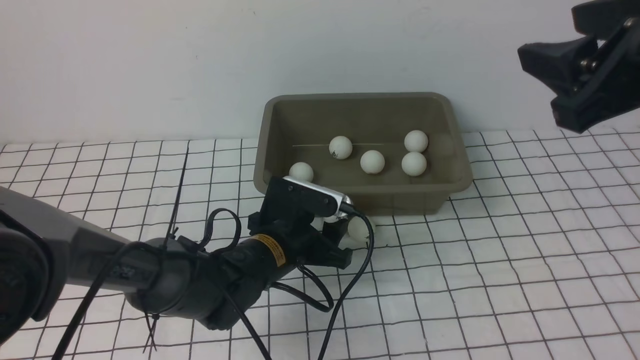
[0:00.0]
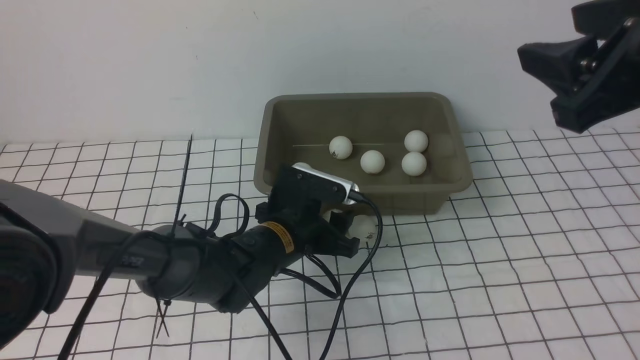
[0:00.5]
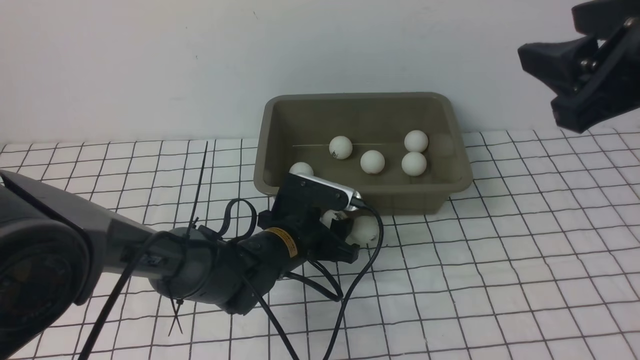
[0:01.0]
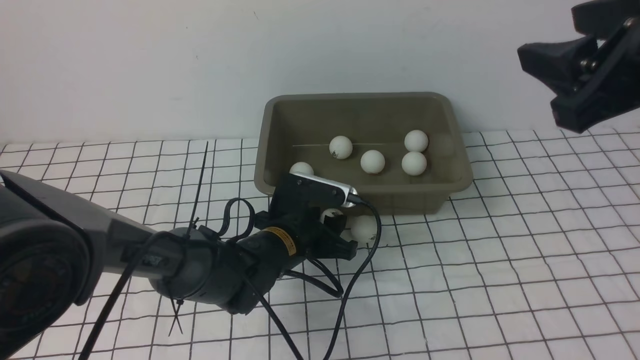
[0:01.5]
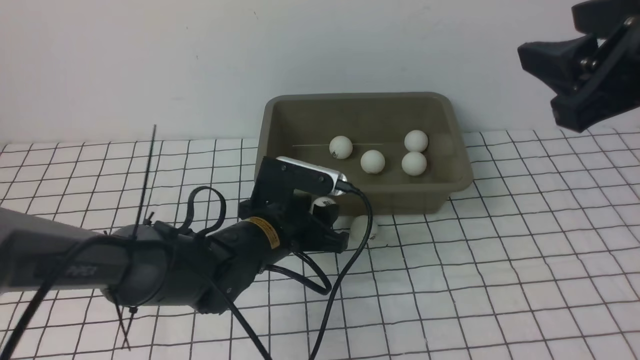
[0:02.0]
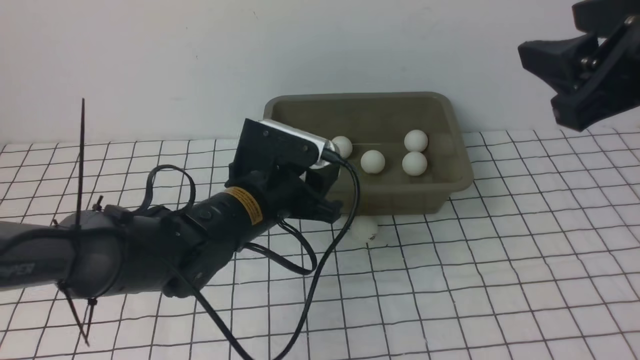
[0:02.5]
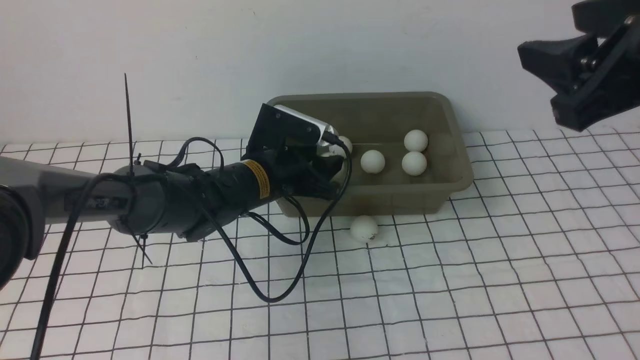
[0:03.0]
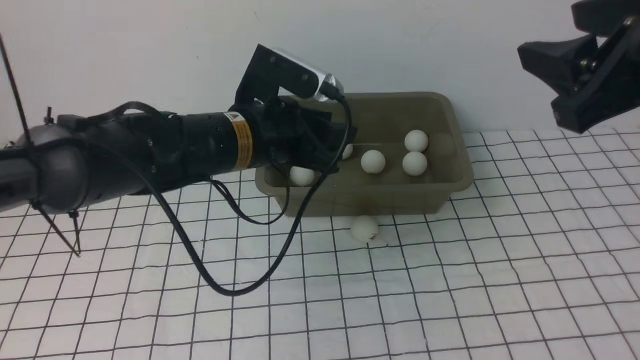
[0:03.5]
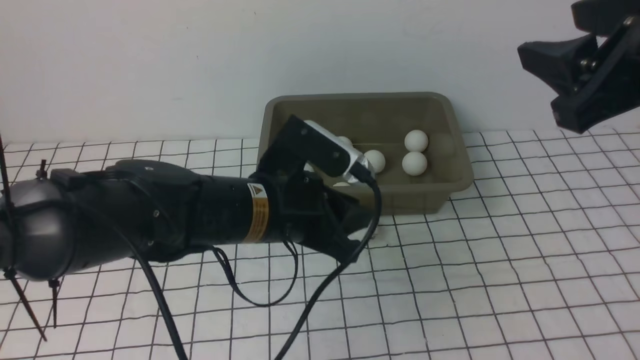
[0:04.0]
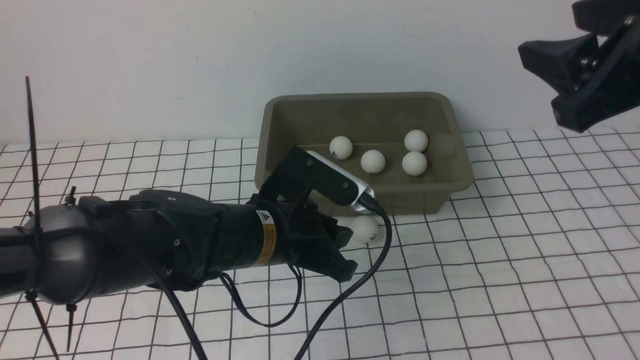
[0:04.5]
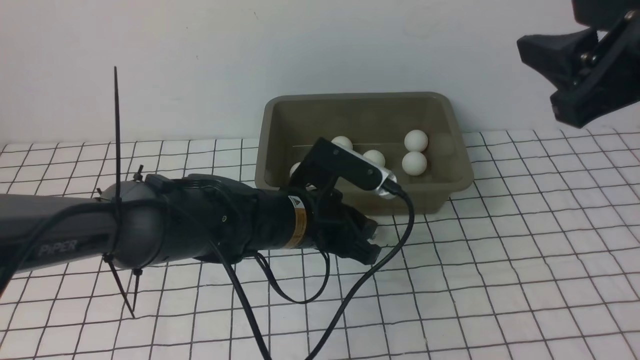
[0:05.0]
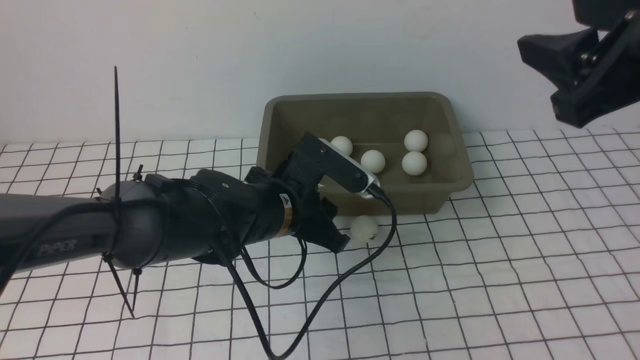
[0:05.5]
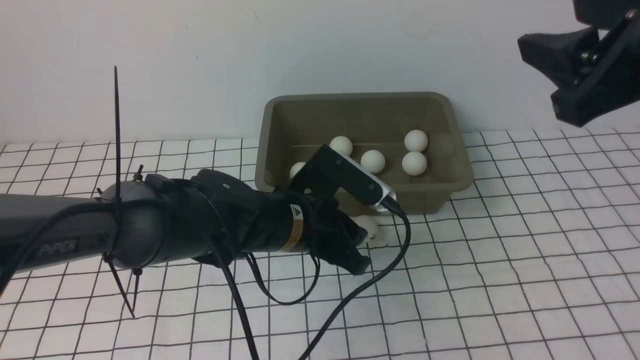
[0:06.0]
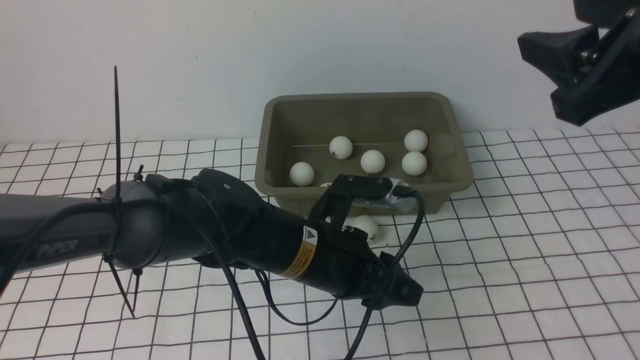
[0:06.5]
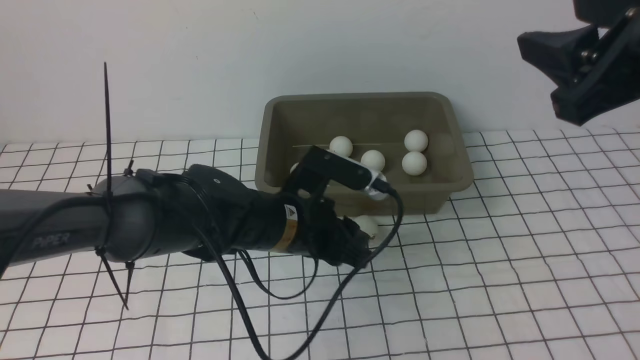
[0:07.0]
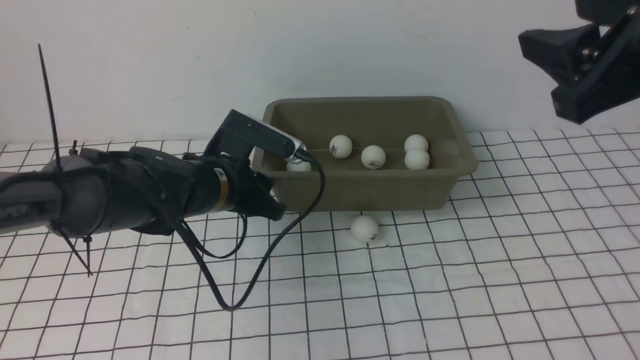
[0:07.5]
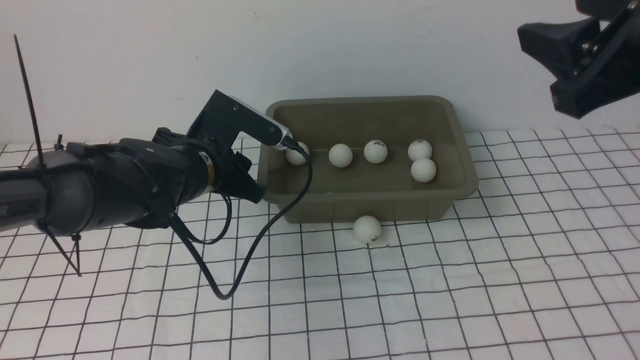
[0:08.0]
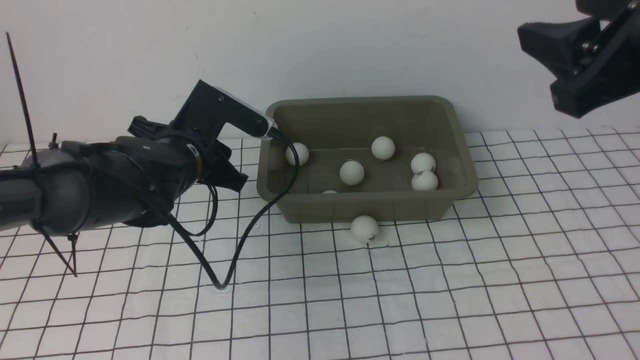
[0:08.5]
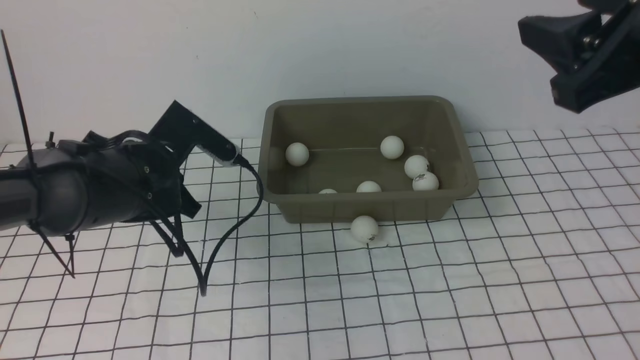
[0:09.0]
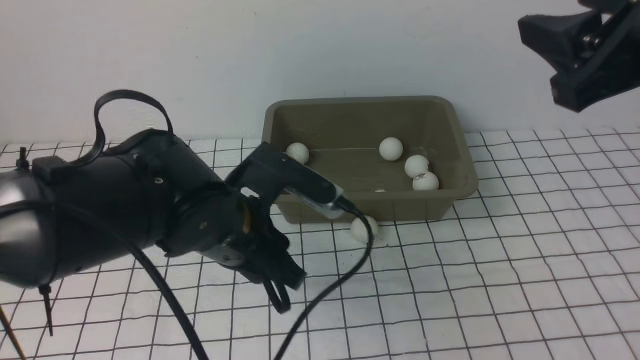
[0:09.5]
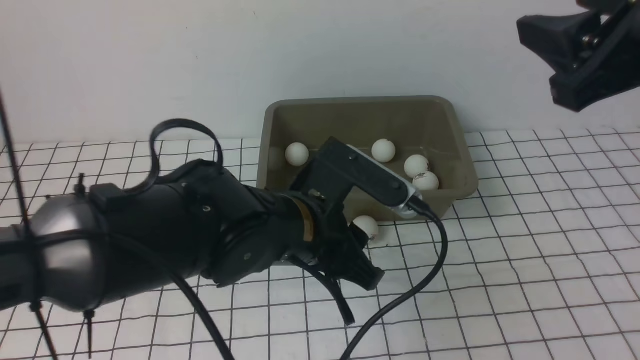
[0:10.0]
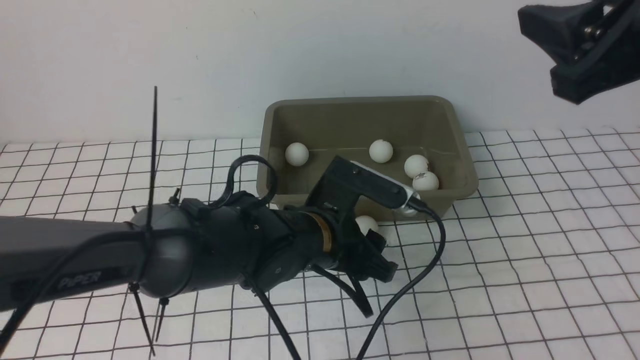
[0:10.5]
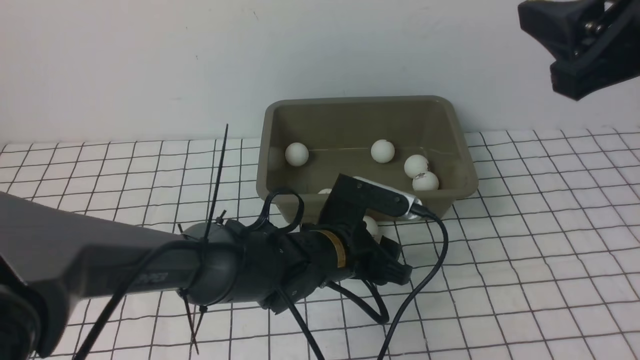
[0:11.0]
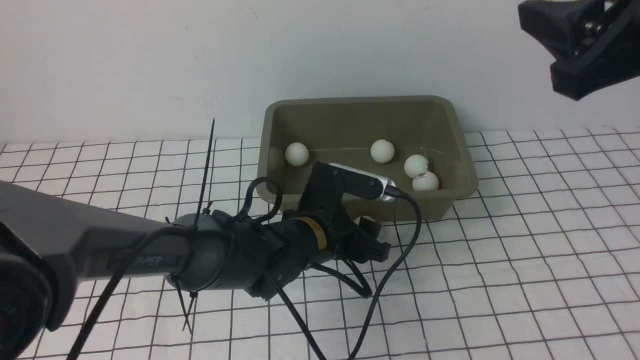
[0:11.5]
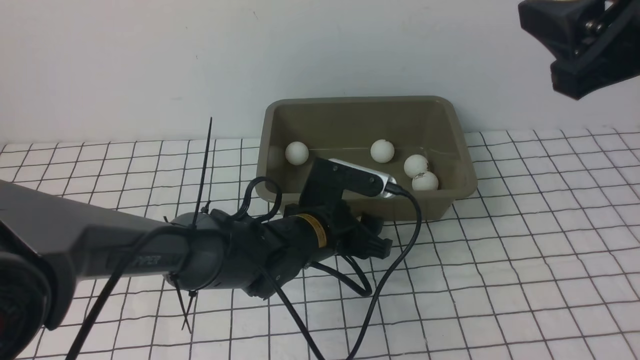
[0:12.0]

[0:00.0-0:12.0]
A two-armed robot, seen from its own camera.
Step, 0:00.0 to 0:02.0: use the left arm to clamp the table tennis ball closest to it.
Step, 0:02.5 to 0:03.0: use the left arm to put the table tennis ball into the box.
0:00.0 to 0:02.0: The grippers move only a little.
0:02.0 to 0:04.0: The left gripper moves upward, some 5 cm.
0:04.0 to 0:06.0: The left gripper moves approximately 5 cm.
0:06.0 to 0:08.0: The left gripper travels to the left and forward by some 10 cm.
0:08.0 to 0:10.0: The left gripper is displaced to the right and backward by roughly 15 cm.
0:10.0 to 0:12.0: The left gripper travels downward and forward by about 10 cm.

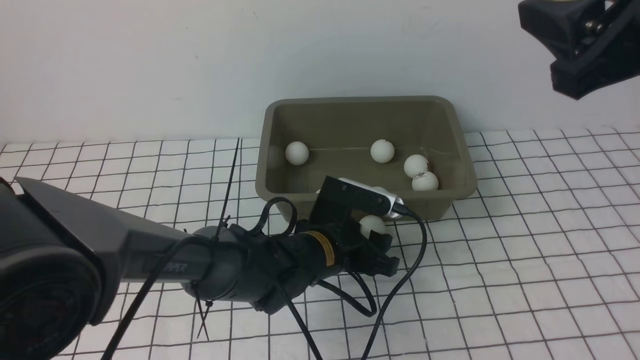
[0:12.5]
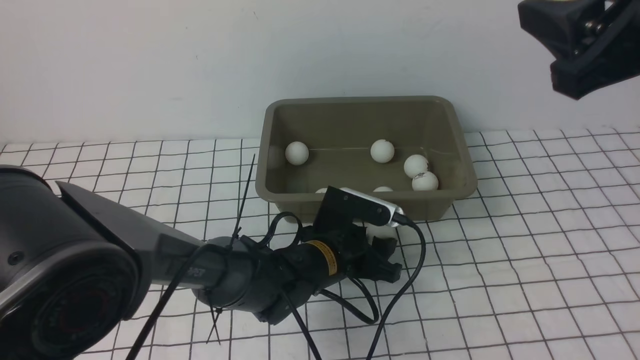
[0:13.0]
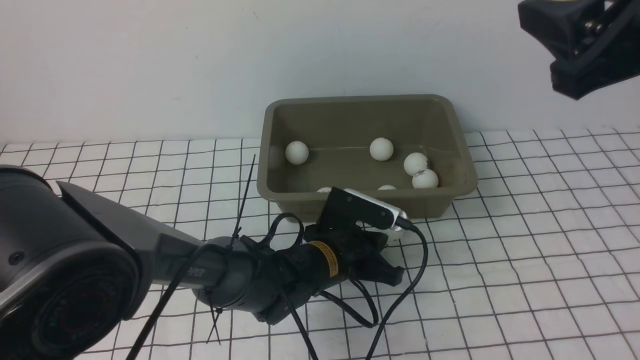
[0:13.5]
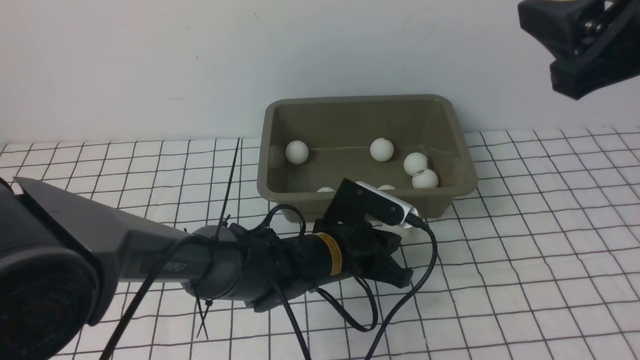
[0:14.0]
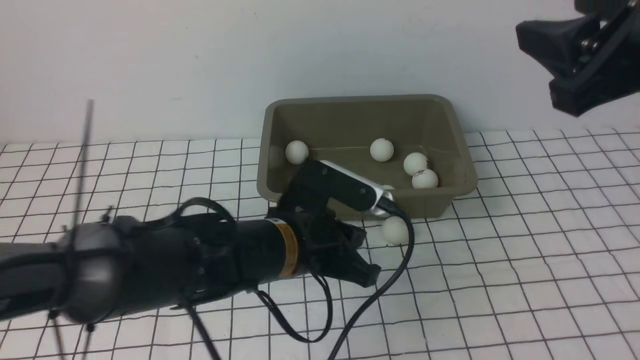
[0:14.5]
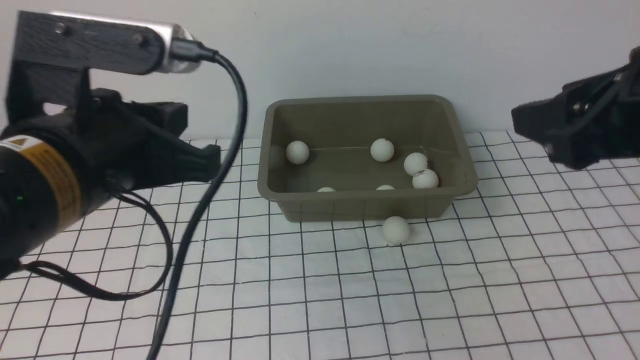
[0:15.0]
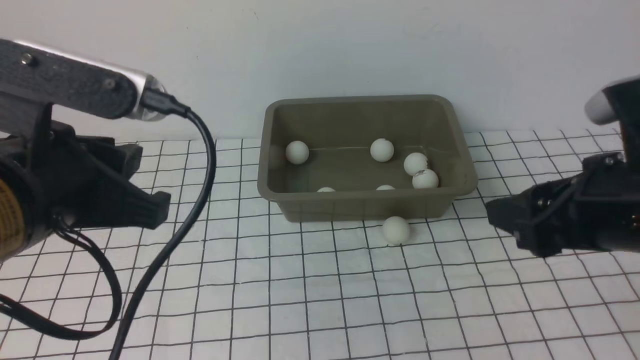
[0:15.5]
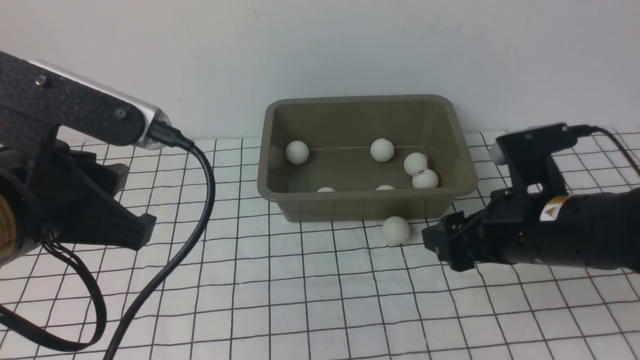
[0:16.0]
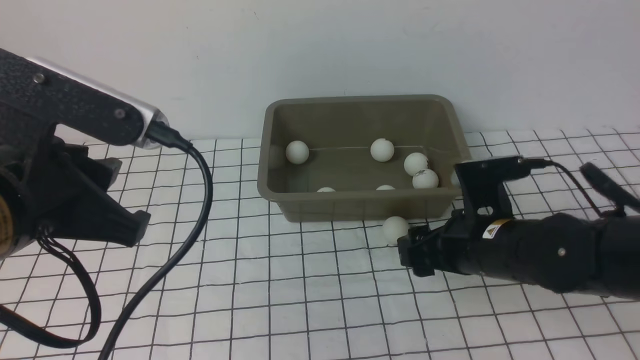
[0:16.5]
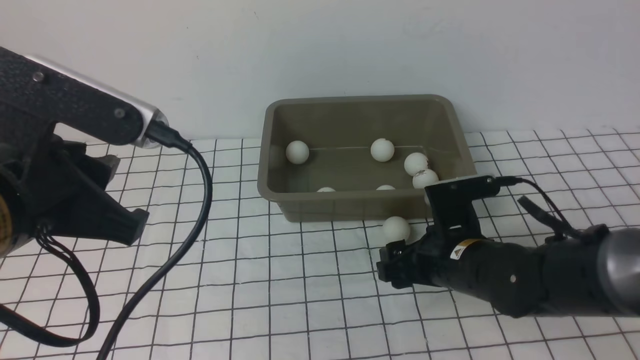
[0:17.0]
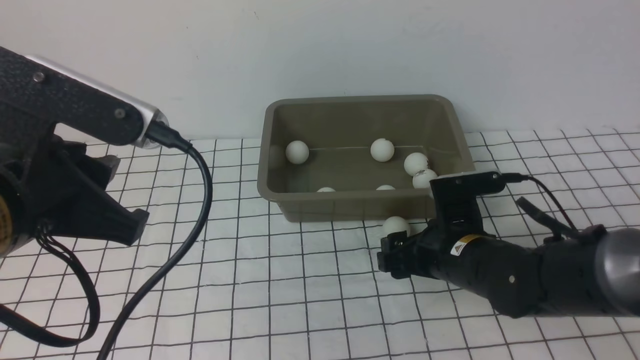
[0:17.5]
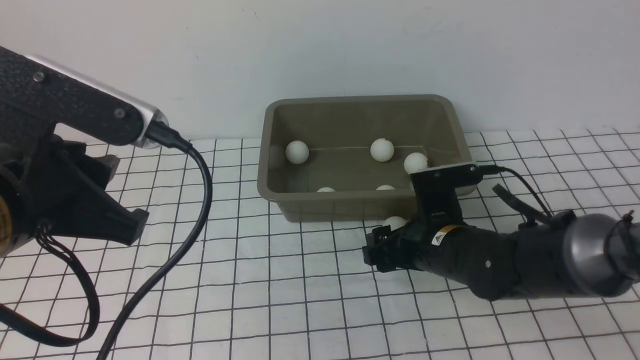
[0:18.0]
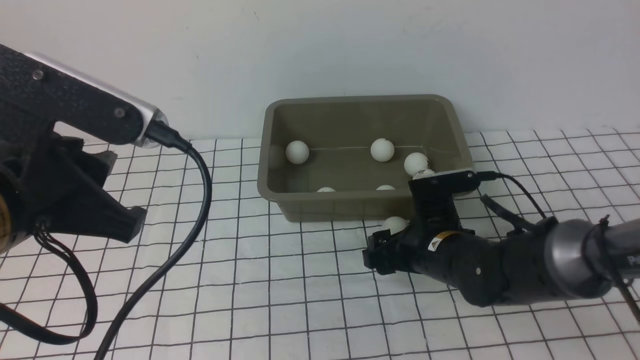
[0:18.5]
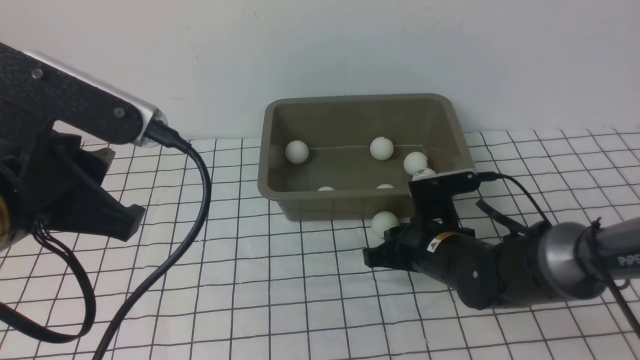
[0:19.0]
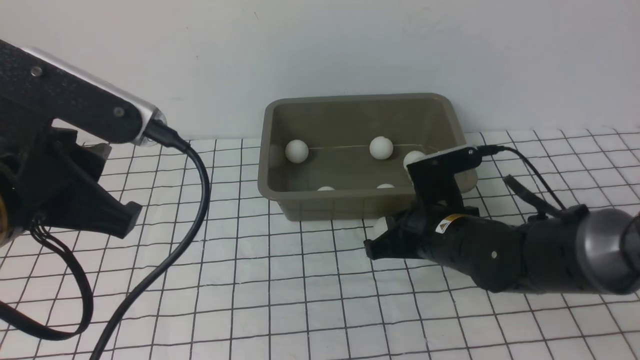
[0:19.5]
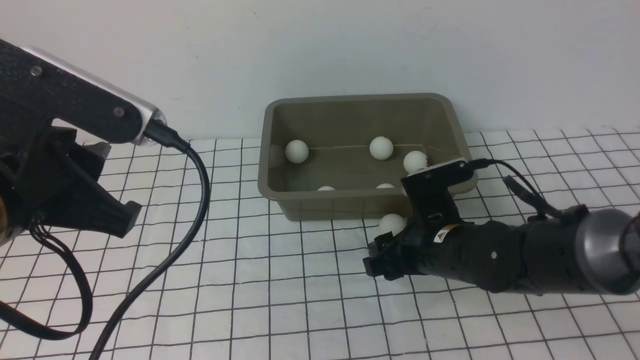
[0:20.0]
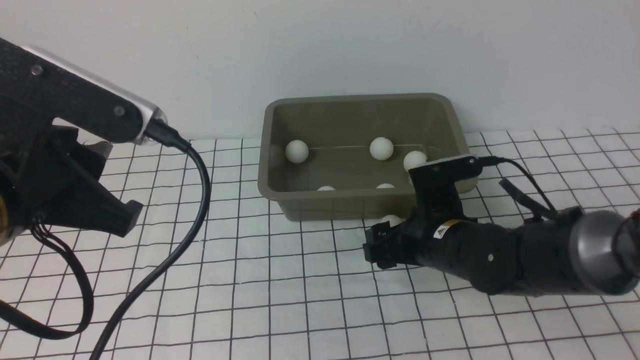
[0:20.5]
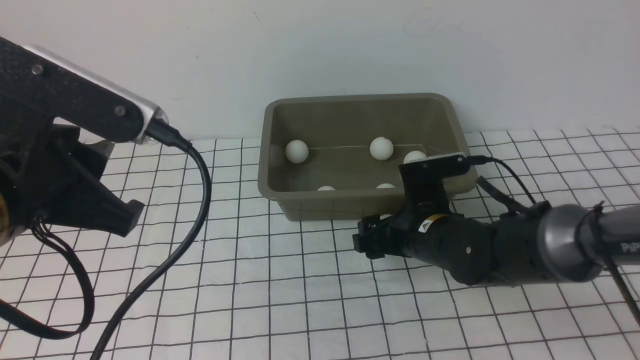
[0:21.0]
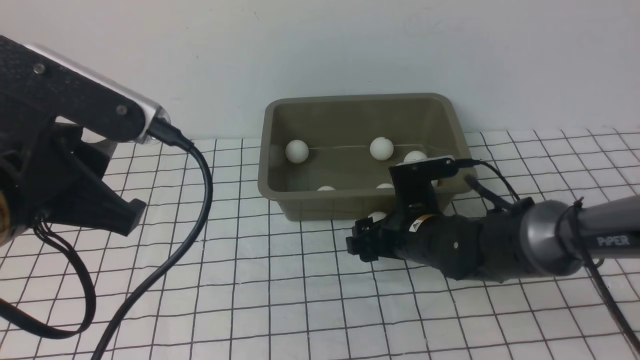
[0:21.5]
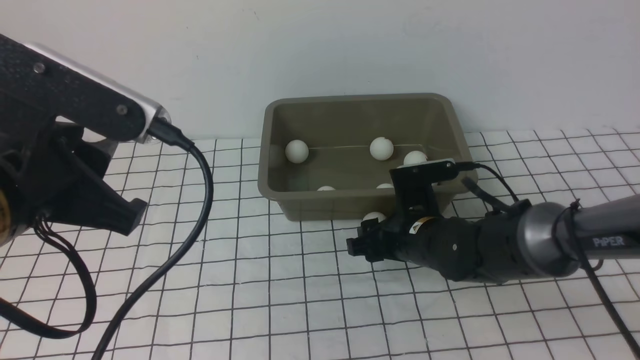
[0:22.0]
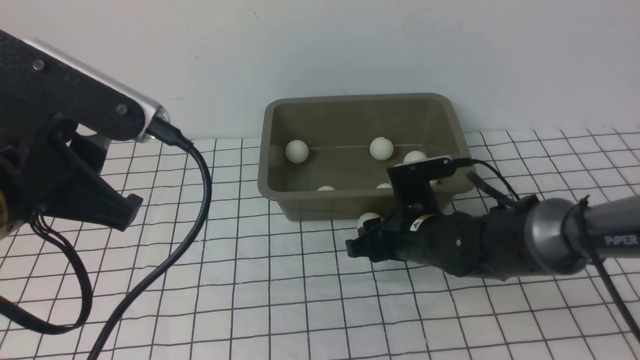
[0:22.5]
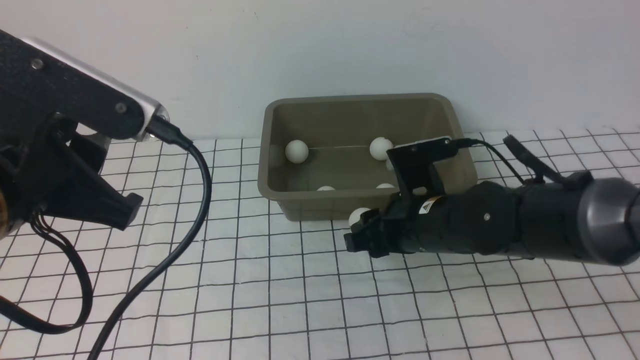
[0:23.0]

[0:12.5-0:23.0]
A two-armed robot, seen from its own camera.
Step, 0:12.5 to 0:22.5: use the right arm to clamp the table tennis ball closest to it.
0:12.5 to 0:14.5: The left gripper heads upward, backward and to the left, covering roughly 20 cm, and closes its fingers.
0:14.5 to 0:16.5: The left gripper travels to the left, upward and backward by roughly 15 cm, and opens; the right gripper shifts about 25 cm downward, and opens its fingers.
0:16.5 to 0:19.0: The right gripper heads downward, covering about 5 cm, and closes.
0:19.0 to 0:21.0: The right gripper opens its fingers.
0:21.0 to 0:23.0: The right gripper closes up.
